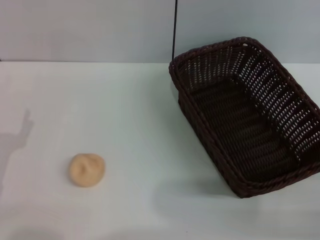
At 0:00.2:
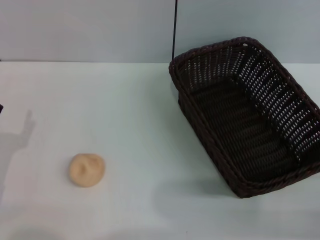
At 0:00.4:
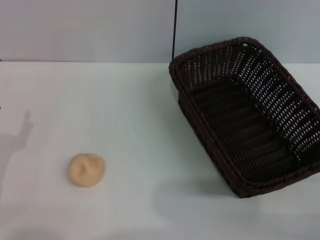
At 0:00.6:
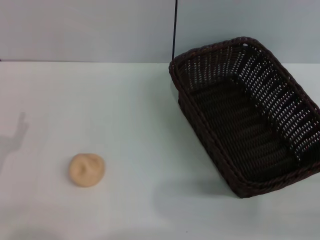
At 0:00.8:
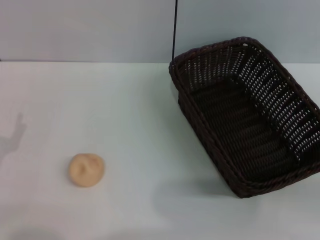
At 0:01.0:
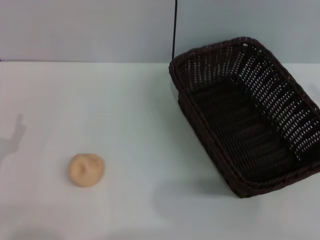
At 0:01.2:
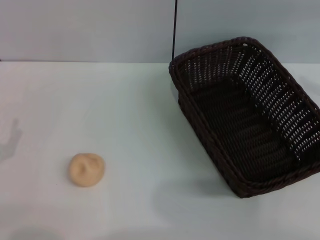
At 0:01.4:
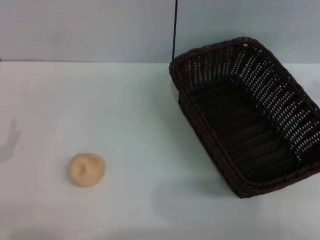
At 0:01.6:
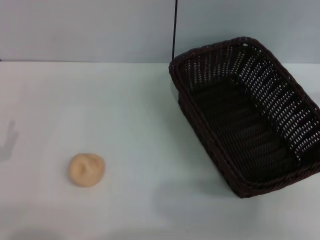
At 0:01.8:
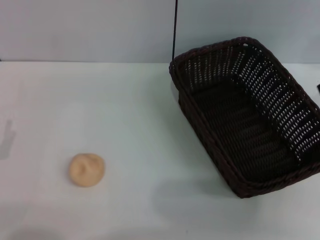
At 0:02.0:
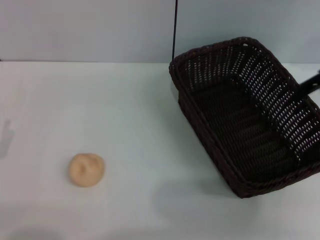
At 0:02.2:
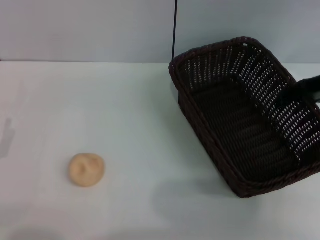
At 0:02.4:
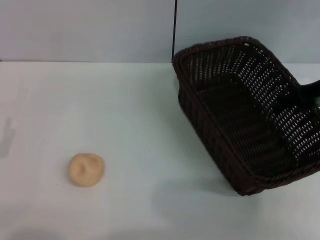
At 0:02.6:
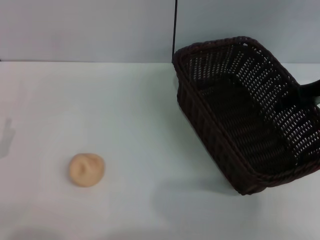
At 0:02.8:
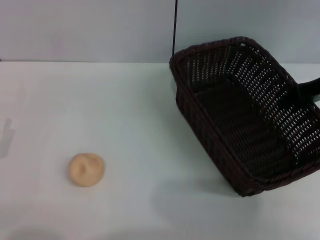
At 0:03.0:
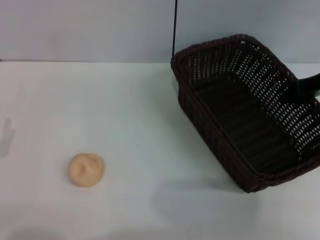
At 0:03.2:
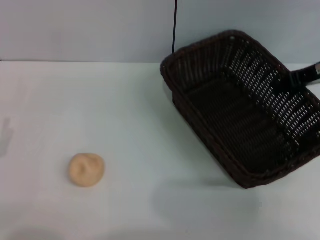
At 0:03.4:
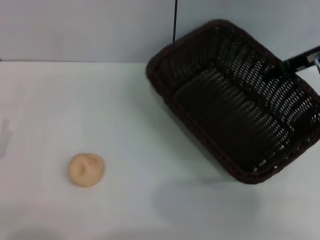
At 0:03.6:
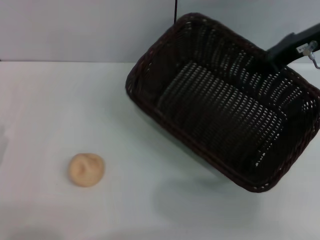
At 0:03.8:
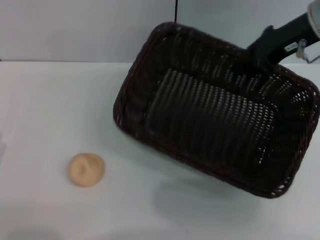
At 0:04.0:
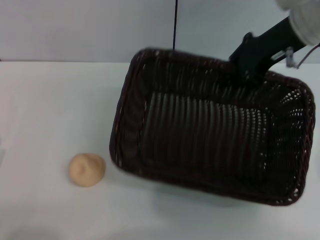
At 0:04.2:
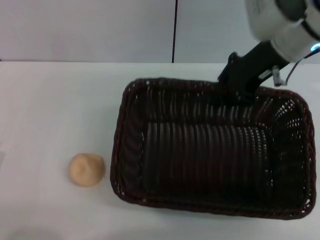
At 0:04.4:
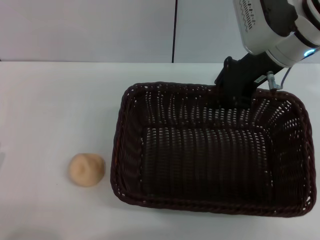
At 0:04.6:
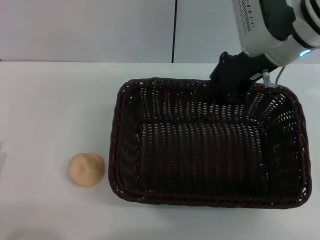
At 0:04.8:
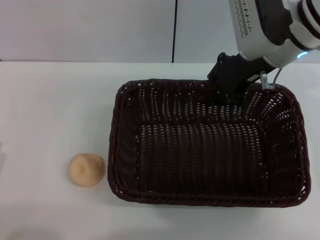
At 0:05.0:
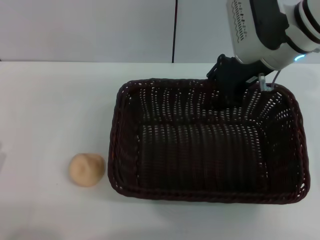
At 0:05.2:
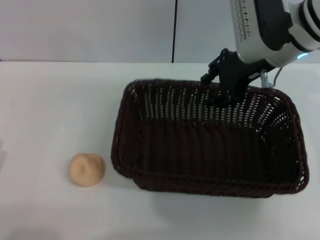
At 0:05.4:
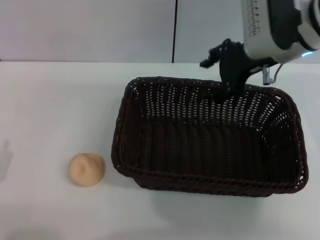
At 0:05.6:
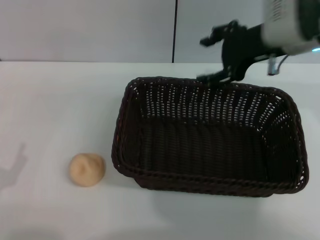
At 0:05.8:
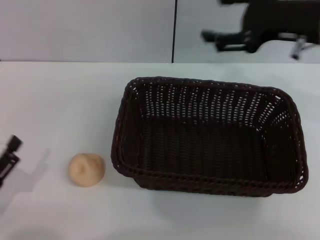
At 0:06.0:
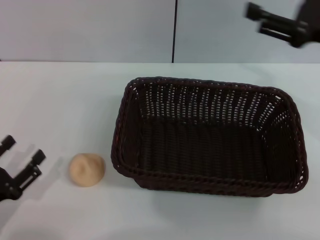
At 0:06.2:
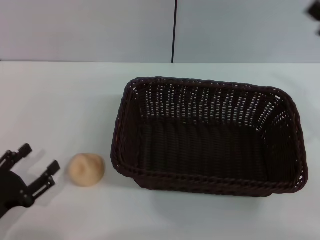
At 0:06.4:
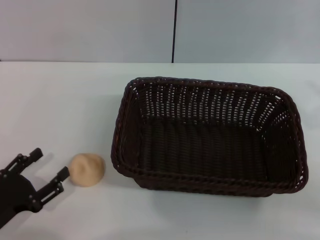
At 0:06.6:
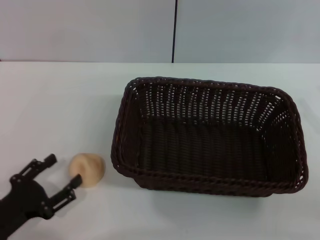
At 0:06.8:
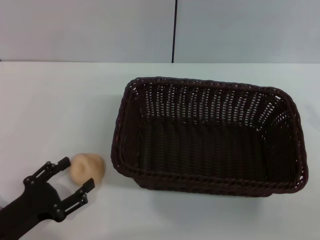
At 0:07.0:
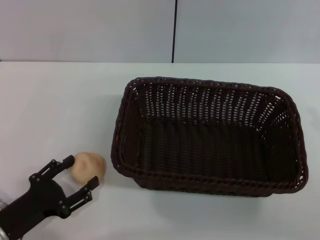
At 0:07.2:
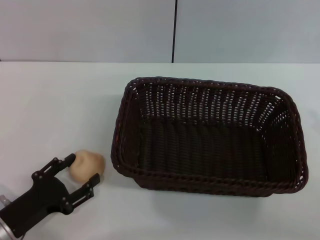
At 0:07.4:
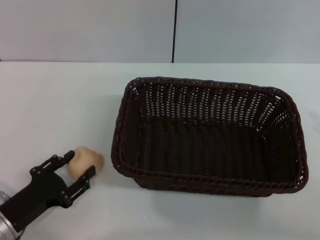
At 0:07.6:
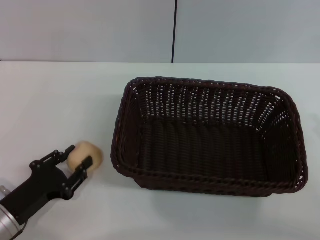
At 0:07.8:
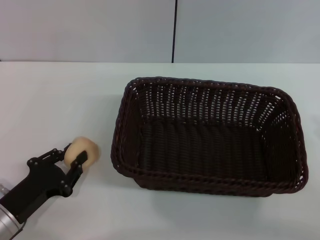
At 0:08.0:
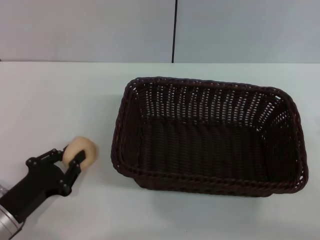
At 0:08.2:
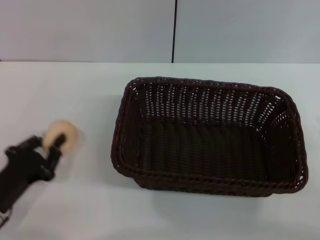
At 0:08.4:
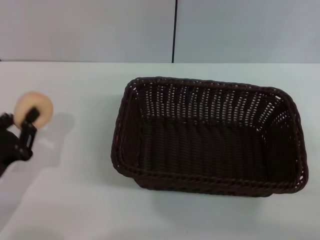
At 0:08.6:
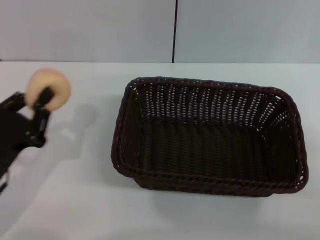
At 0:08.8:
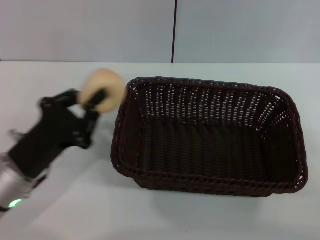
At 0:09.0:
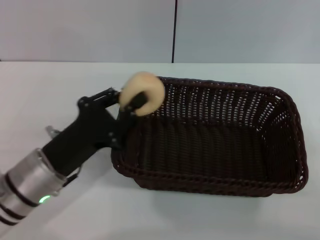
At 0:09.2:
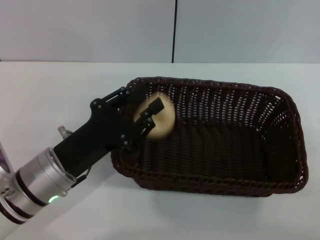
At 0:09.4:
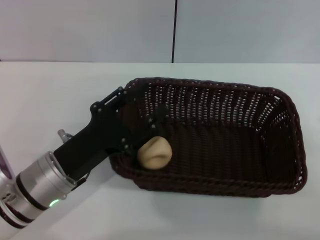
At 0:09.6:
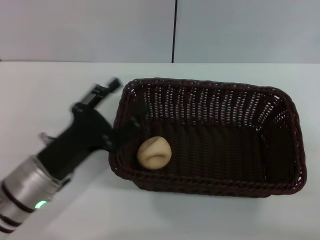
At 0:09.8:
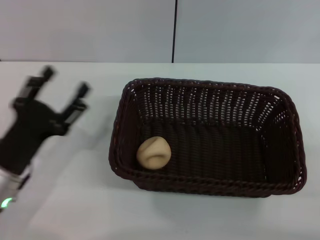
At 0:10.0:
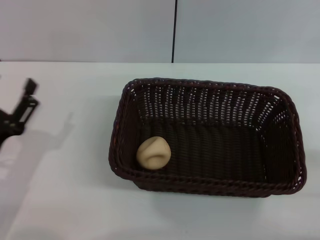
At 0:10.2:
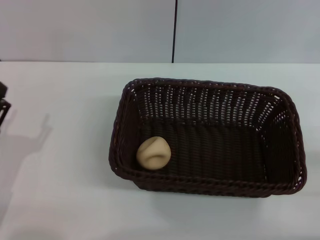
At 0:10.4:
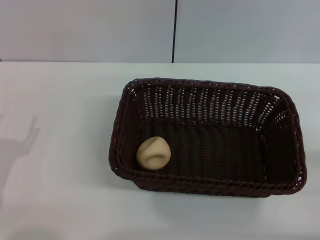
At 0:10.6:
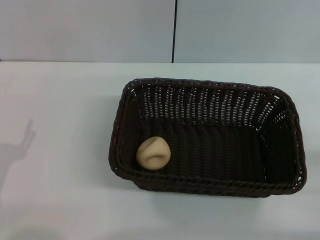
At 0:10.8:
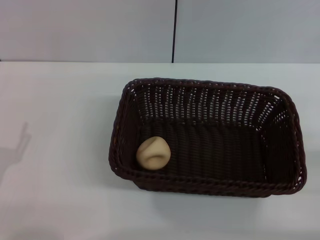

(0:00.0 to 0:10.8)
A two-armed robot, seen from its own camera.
Step, 0:00.0 - 0:05.6: Move the basket to the center of view with the right gripper.
Step, 0:05.8 - 0:08.2: Pick up the egg yolk pastry with the left gripper.
Step, 0:08.4 - 0:09.4: Place the egg yolk pastry into the basket with the left gripper.
0:00.0 - 0:01.6: The right gripper is displaced upward and forward by approximately 30 cm.
0:01.6 - 0:03.0: The right gripper shifts approximately 10 cm downward.
0:03.0 - 0:04.6: The right gripper travels to the left by roughly 15 cm, and closes.
0:04.6 - 0:06.2: The right gripper is displaced to the right and backward by some 20 cm, and opens up.
0:06.2 - 0:07.8: The left gripper shifts by about 5 cm, and closes up.
0:07.8 - 0:09.2: The left gripper shifts roughly 10 cm to the right, upward and forward.
0:09.2 - 0:10.8: The left gripper moves to the left and backward, roughly 15 cm, and opens up.
